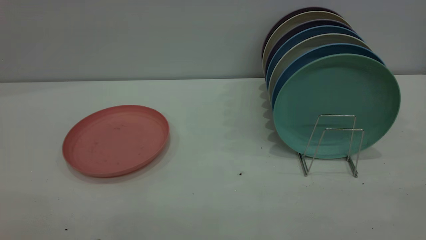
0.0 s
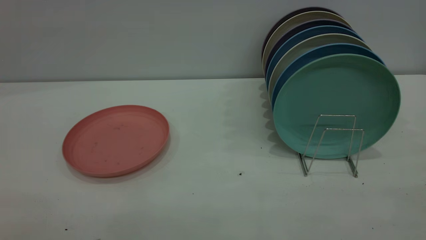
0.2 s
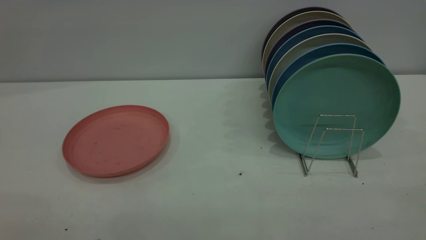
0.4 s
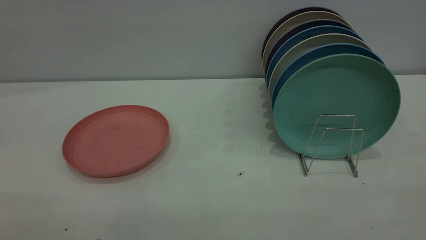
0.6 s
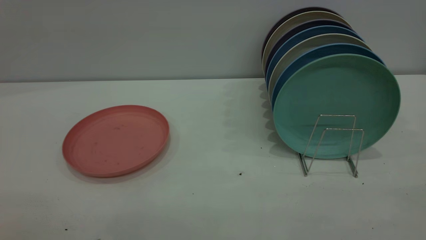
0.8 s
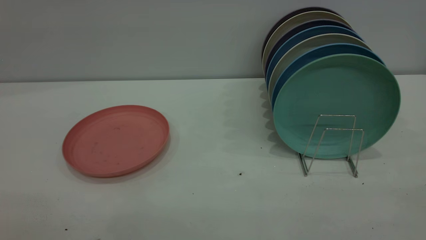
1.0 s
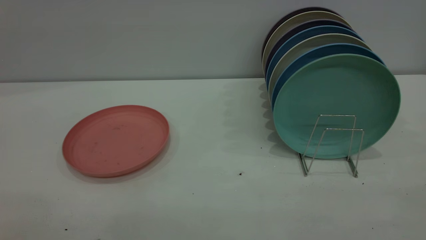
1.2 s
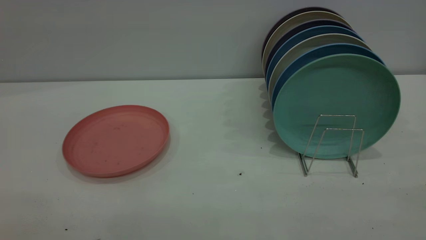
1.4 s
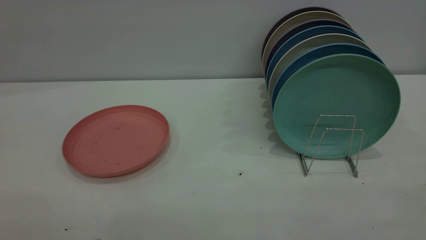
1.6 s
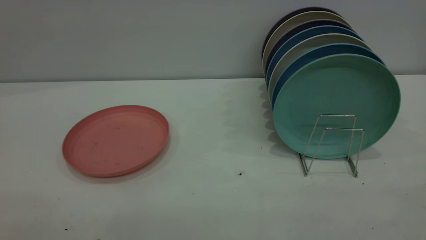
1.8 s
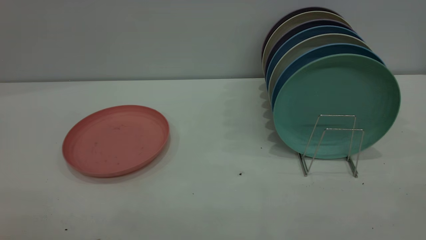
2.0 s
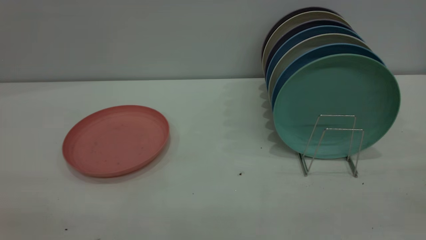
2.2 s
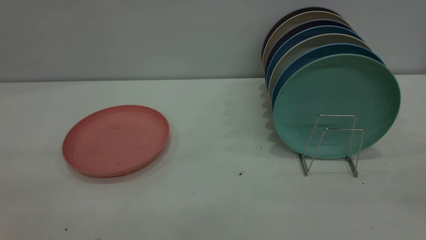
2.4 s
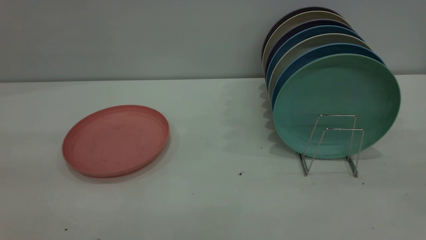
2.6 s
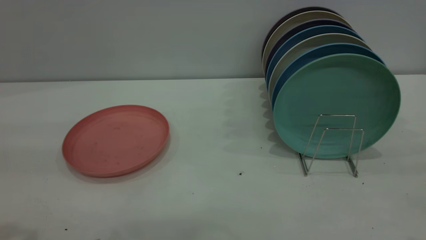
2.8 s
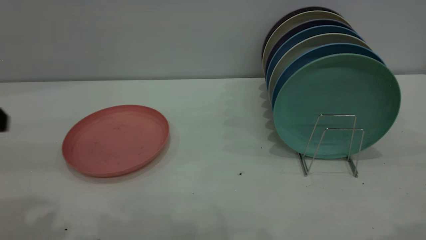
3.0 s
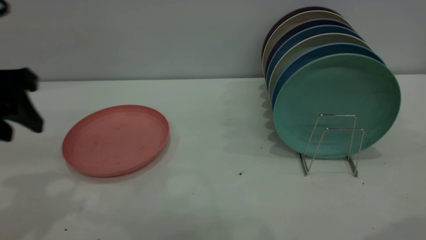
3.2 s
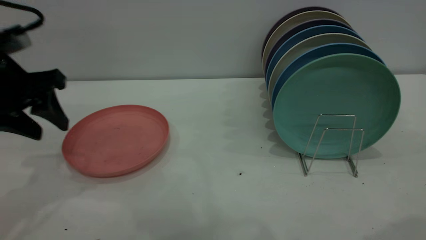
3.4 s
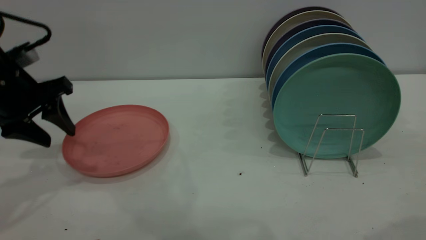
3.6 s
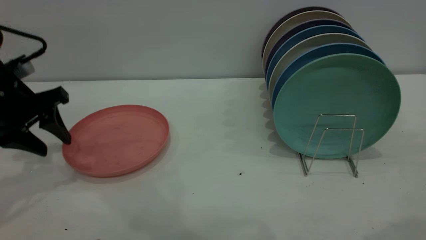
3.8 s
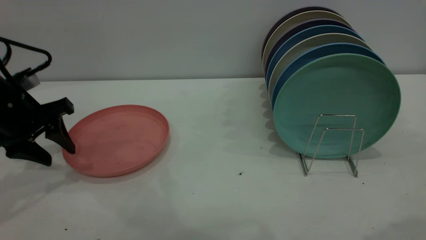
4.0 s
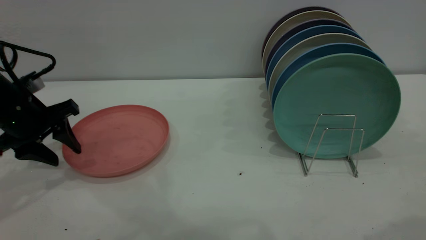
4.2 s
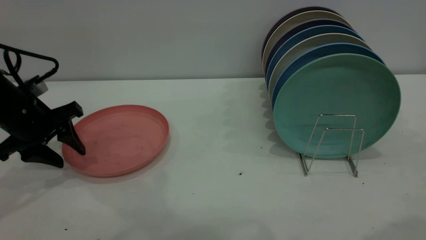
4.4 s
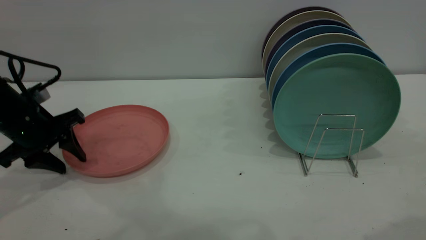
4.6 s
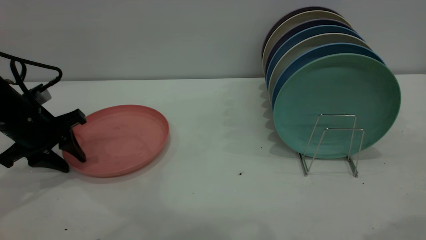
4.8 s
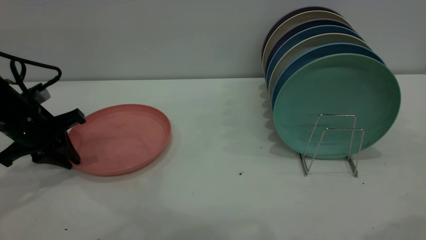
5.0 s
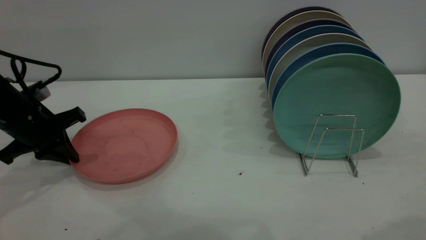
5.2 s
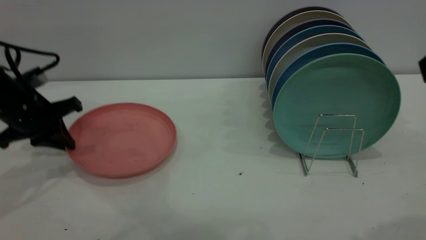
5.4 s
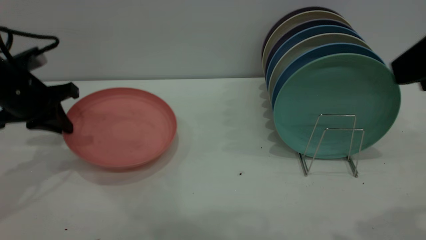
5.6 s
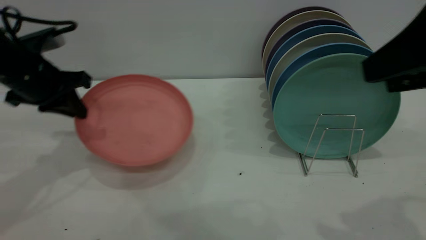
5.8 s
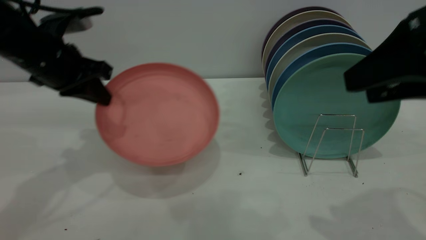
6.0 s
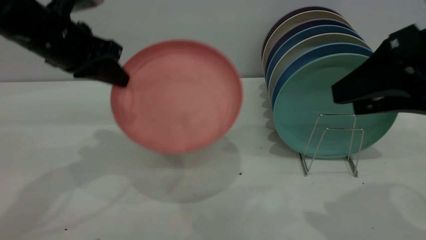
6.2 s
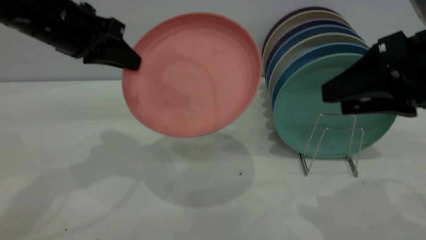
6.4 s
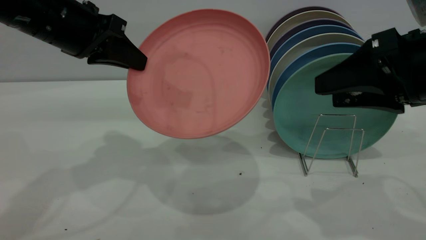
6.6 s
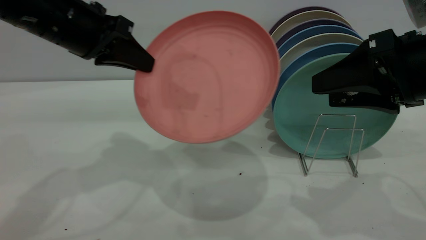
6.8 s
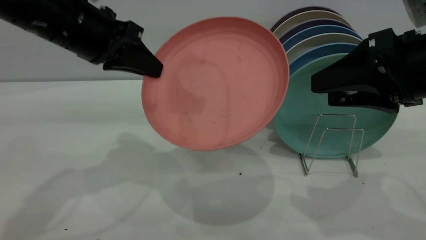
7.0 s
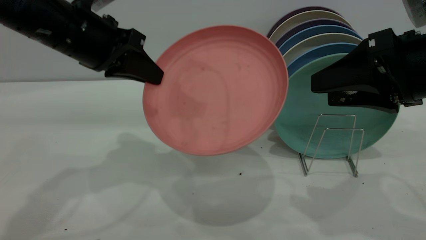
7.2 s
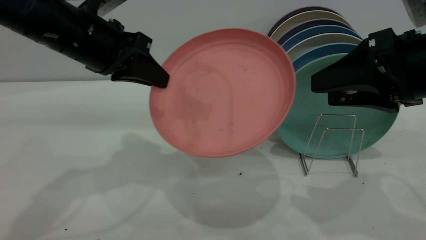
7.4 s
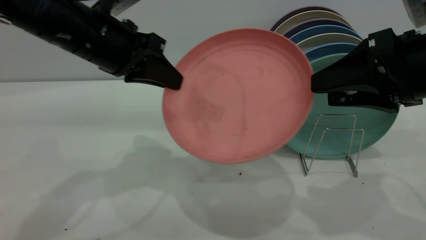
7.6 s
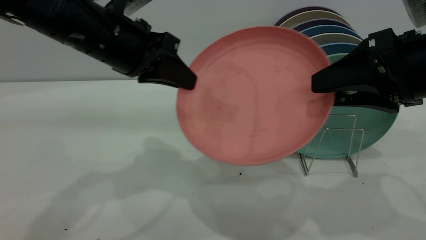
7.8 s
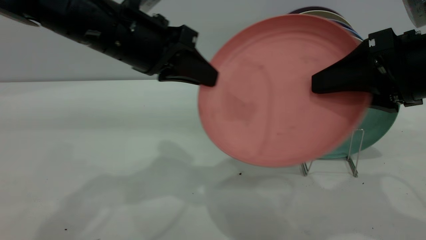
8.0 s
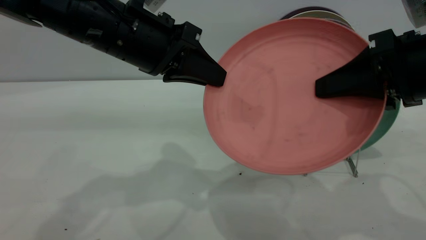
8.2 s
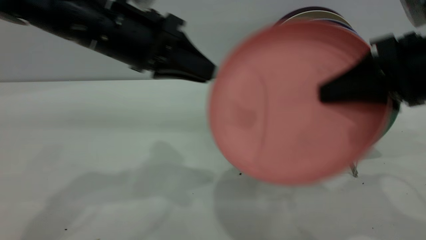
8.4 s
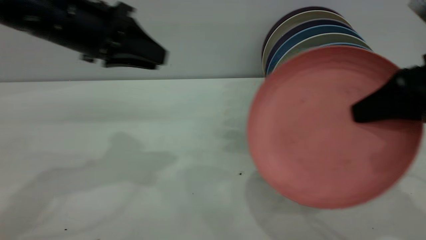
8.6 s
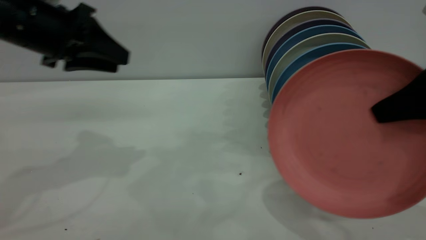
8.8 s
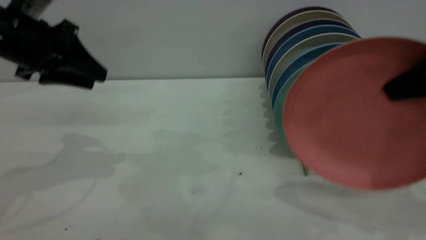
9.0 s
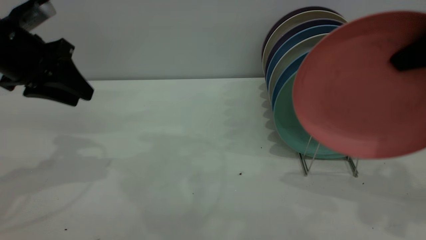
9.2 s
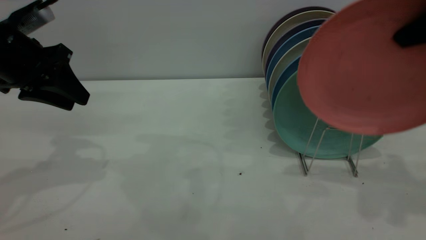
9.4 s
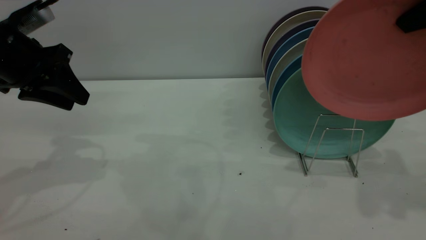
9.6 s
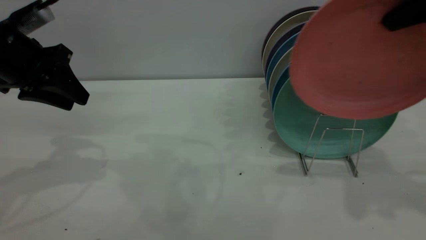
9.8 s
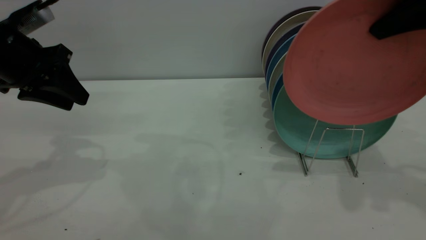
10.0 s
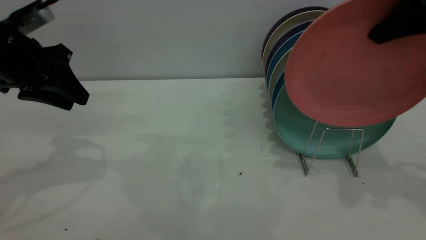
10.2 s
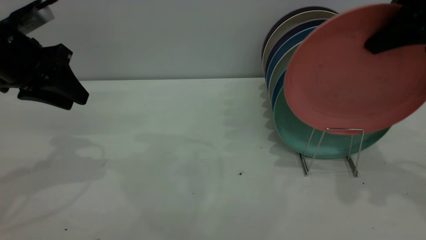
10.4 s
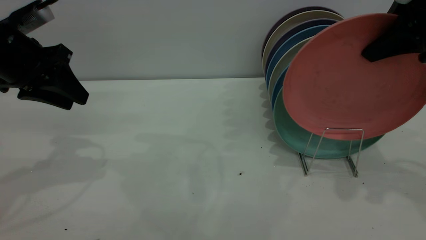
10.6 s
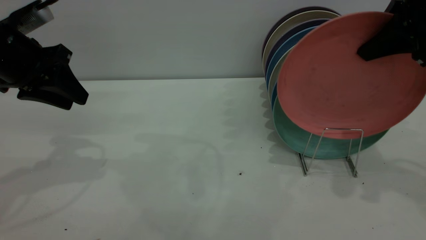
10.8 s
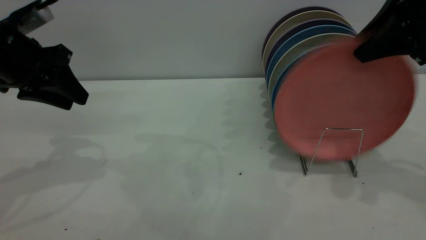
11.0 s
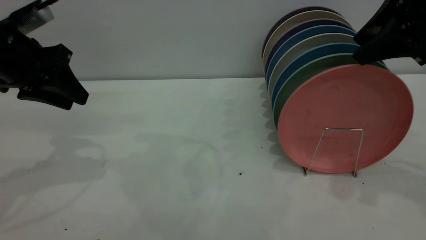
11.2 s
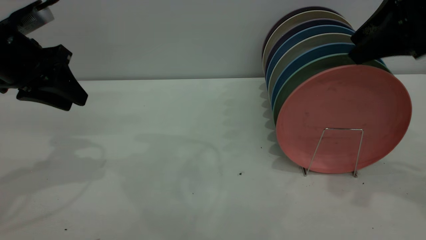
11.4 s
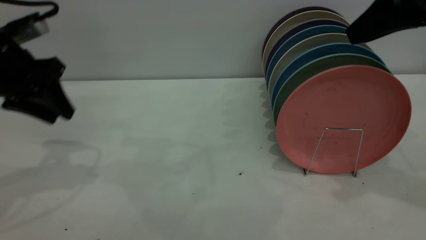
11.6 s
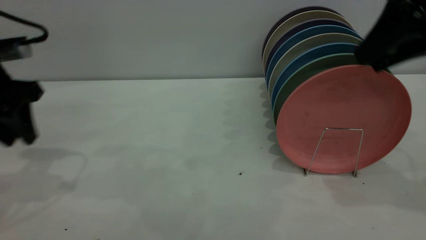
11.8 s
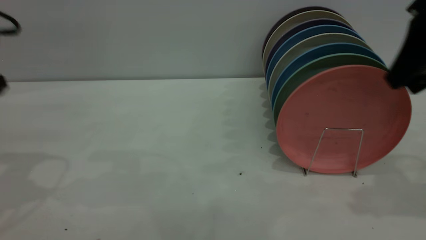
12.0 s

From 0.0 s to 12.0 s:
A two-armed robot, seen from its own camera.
Task of the whole recording: put the plate on the plate rack.
Step, from 0.0 s to 5.4 s: Pick up the plate with the left gripper.
Step, from 5.6 s to 8.2 s: Pass the plate from the left gripper to the right gripper.
Step, from 8.4 s to 11.2 s: Place the plate on the shelf.
From 0.0 s to 1.6 s: Neither gripper changes place.
From 3.0 s to 4.4 s: The left gripper travels downward and forward by some 20 cm.
From 4.4 s to 6.0 s: The left gripper shifts about 10 cm upward and to the right, and closes. The right gripper is displaced downward and forward by roughly 5 cm.
From 6.0 s to 7.6 s: The left gripper moves to the right, some 10 cm. Meanwhile the right gripper shifts by roughly 5 cm.
From 7.6 s to 9.0 s: The left gripper moves to the left, roughly 10 cm, and opens its fingers, while the right gripper is displaced to the right by approximately 5 cm, and closes.
From 9.0 s to 10.4 s: The right gripper travels forward by about 5 cm.
From 10.4 s to 12.0 s: The left gripper ends up roughly 5 cm from where it was. The right gripper opens up.

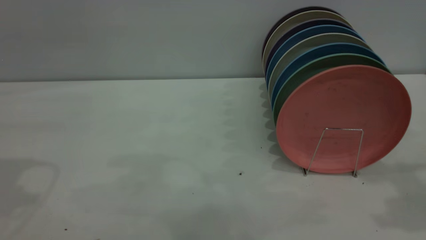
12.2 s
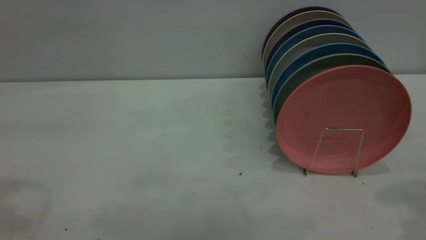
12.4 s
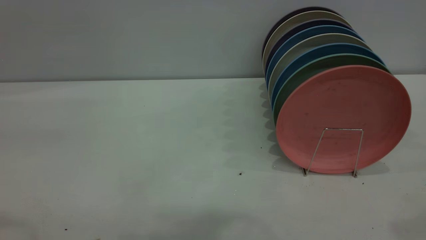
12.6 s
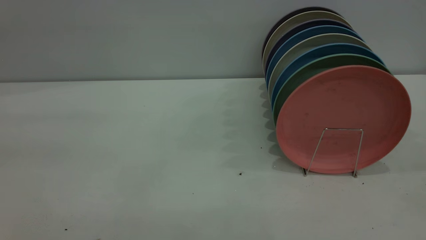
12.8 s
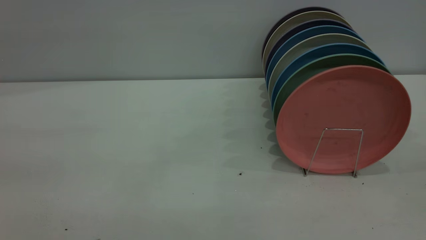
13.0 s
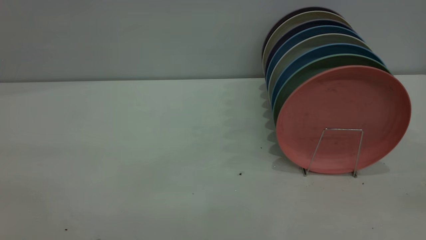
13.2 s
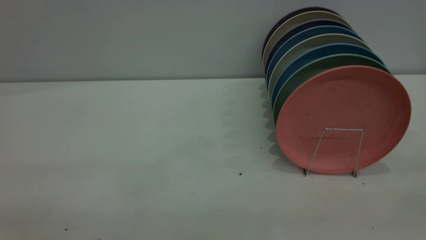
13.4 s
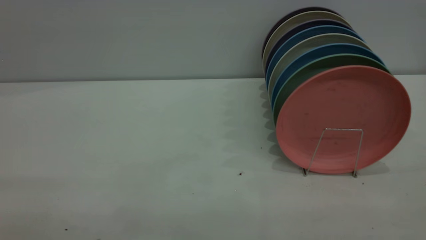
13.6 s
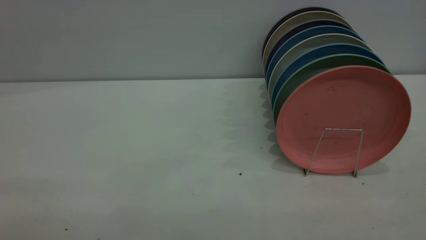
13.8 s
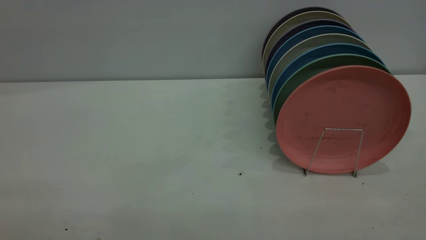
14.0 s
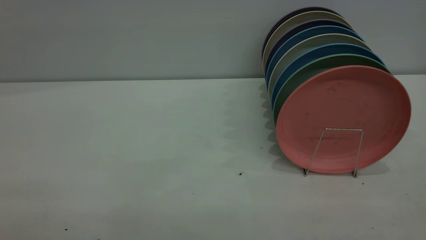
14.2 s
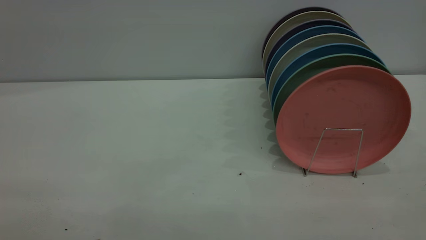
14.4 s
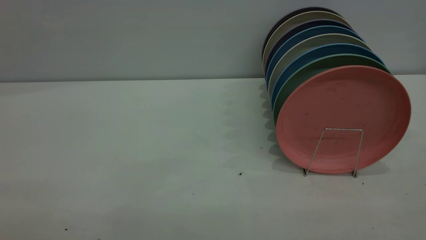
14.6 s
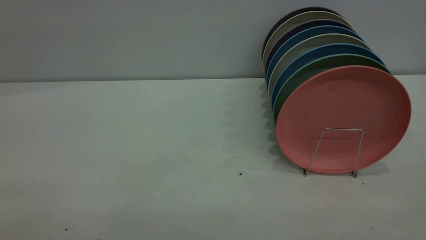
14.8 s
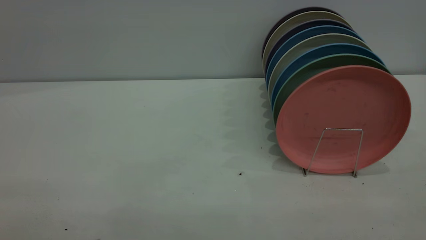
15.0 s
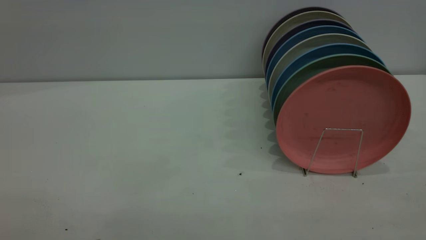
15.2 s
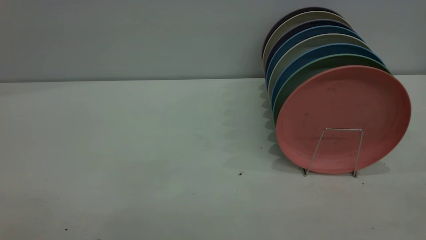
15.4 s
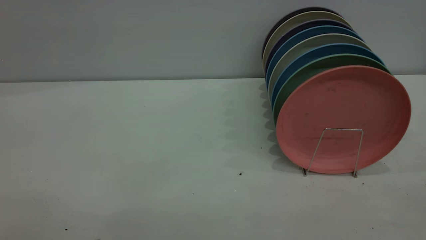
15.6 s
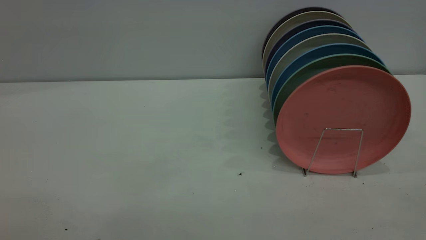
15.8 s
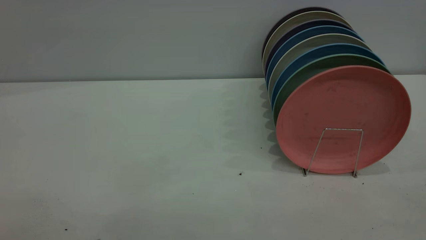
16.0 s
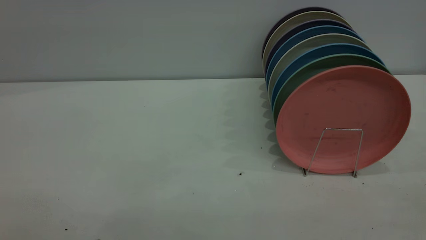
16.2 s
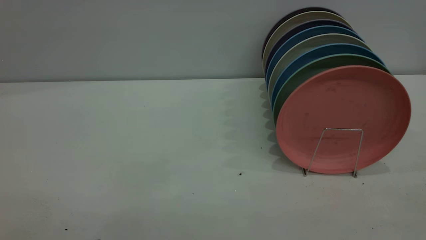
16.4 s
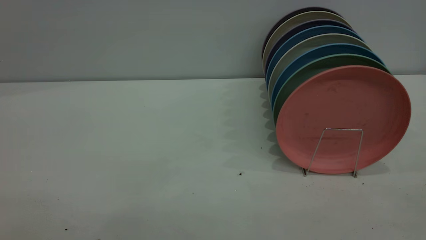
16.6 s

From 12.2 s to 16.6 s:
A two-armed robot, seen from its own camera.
Task of the whole recording: put the plate on the plate rack.
From 15.2 s to 16.6 s: Neither gripper changes place.
